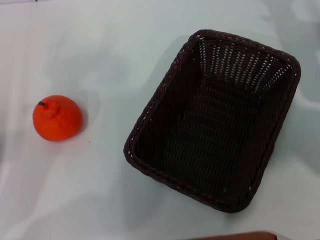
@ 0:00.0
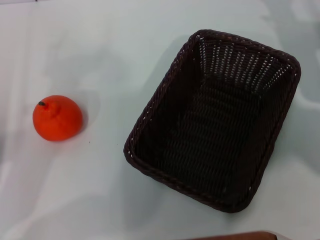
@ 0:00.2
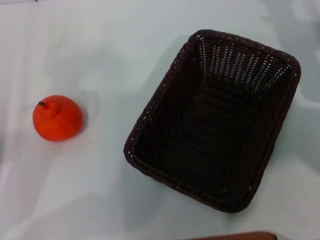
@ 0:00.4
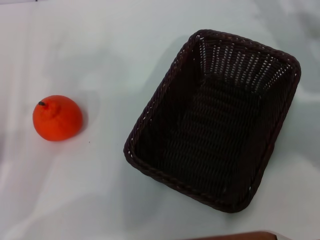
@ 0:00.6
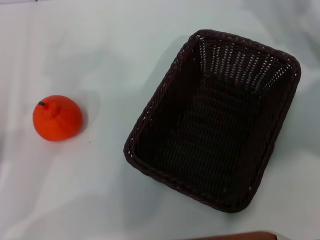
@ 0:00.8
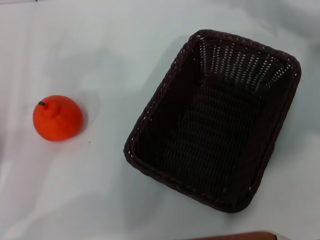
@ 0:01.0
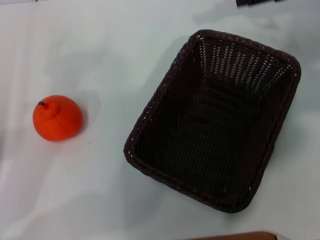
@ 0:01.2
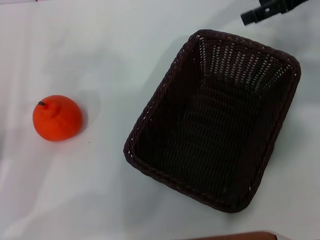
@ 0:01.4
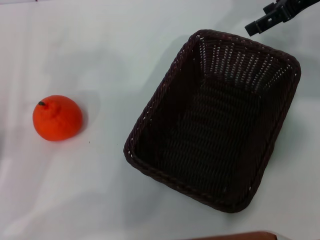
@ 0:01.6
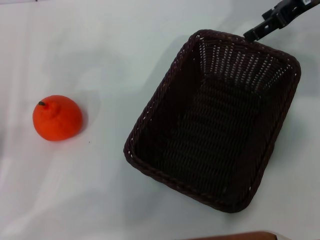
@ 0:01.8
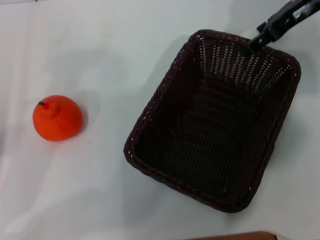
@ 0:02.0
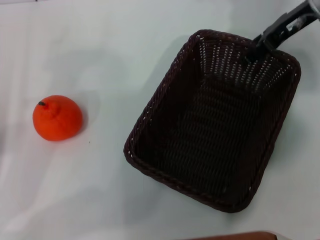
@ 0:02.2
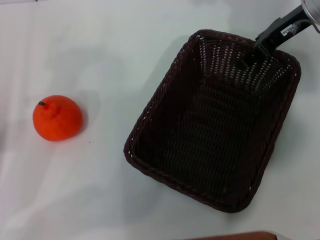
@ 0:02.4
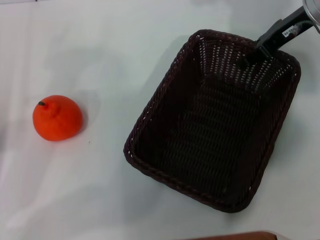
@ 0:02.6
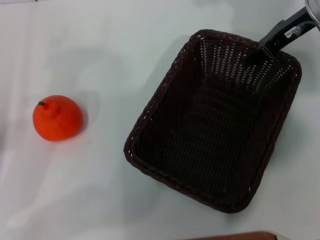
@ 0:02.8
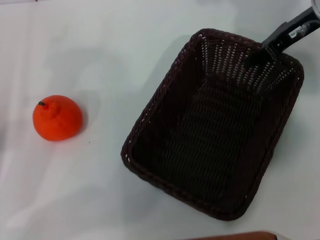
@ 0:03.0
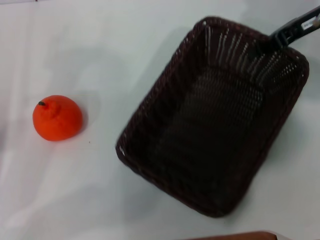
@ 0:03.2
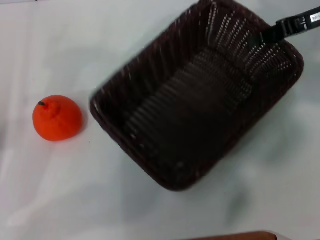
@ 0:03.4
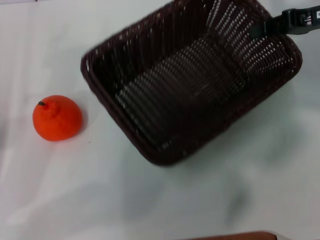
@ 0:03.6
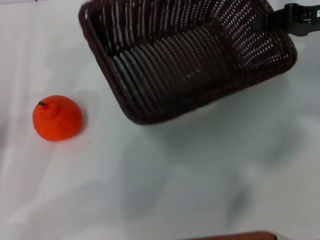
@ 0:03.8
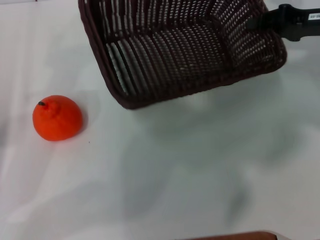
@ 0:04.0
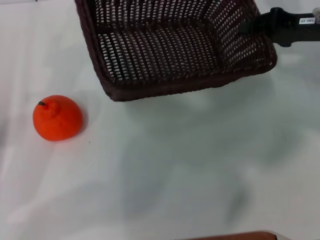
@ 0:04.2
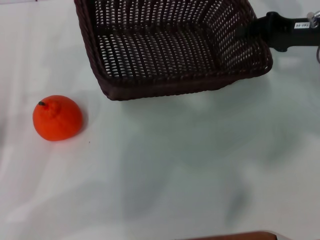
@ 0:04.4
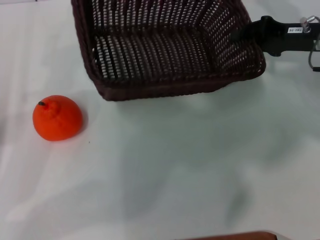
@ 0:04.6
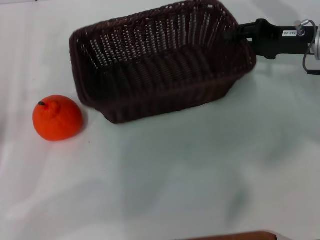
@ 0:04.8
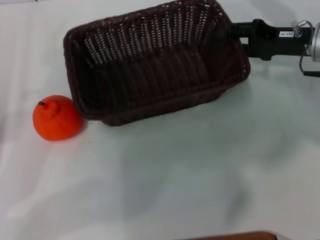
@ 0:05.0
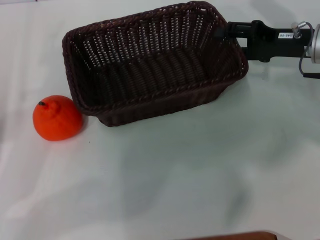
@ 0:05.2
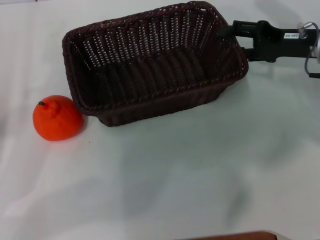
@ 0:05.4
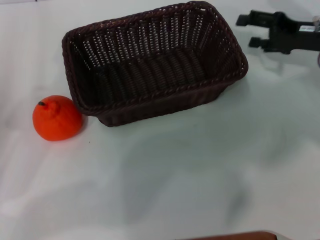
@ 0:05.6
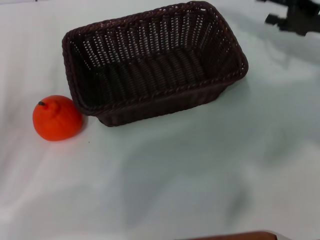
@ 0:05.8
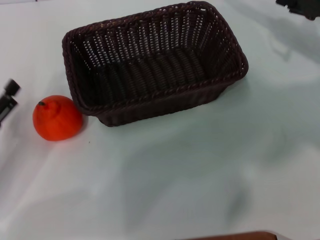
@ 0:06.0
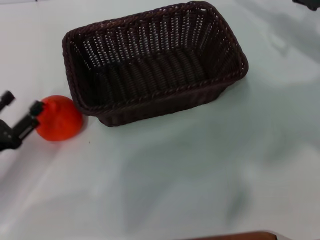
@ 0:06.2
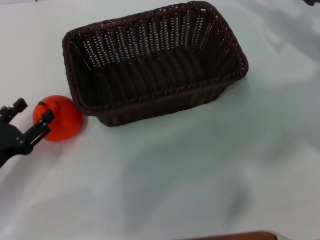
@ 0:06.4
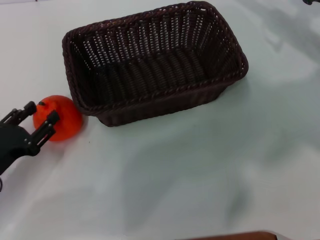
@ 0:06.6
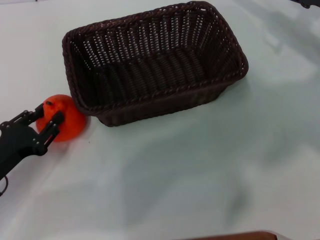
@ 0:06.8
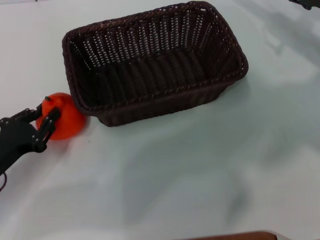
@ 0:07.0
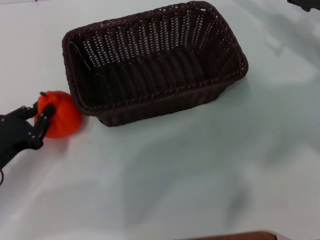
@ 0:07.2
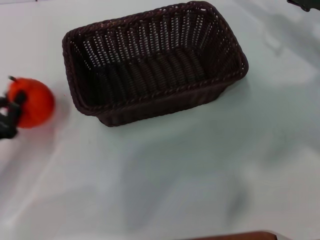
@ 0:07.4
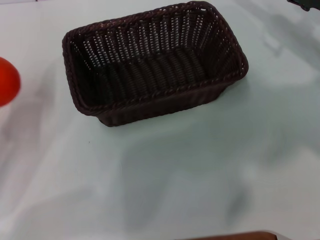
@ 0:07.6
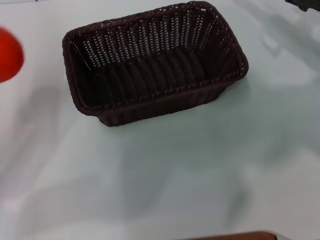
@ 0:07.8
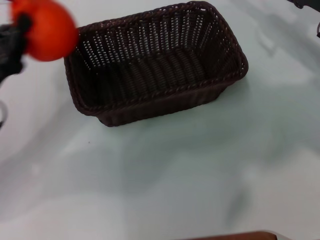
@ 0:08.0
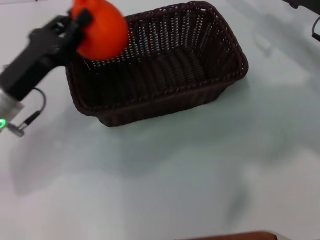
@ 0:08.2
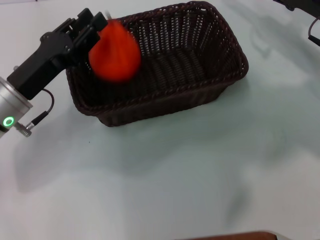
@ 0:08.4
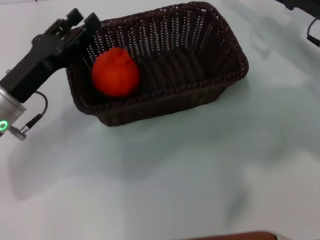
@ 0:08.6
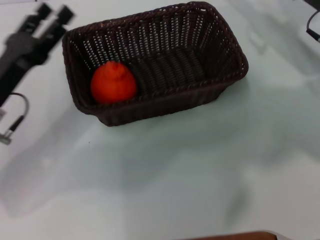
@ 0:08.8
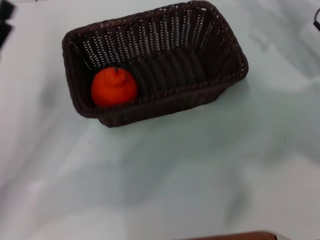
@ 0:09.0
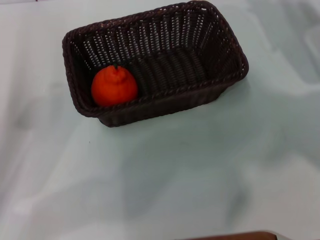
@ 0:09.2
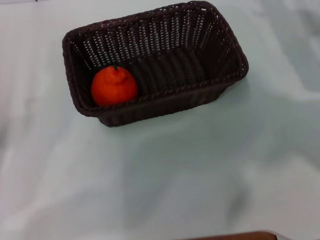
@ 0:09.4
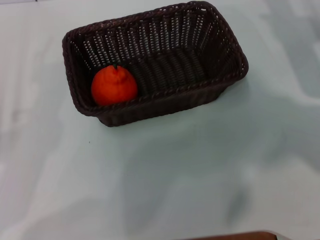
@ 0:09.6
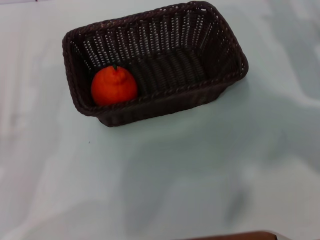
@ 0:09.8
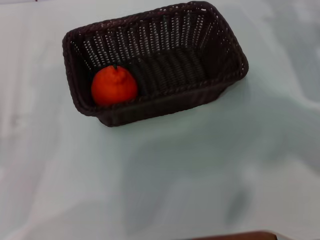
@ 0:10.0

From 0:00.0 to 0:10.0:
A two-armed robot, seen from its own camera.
Task of the whole recording: the right gripper pick up the black basket and place it horizontally in the middle of the table, the left gripper pick up the orange and place it into the black basket.
Step, from 0:00.0 to 0:03.2: Pick up the dark basket with the right gripper.
Step, from 0:03.4 to 0:05.6: Place the dark basket in the center of view with the right gripper.
Step, from 0:05.8 to 0:07.6: Pick up the orange with the left gripper.
Step, from 0:07.8 to 0:08.8: Place the orange into the dark basket with the left gripper.
From 0:00.0 to 0:01.4: The right gripper is displaced upward and forward by roughly 15 cm.
From 0:01.4 to 0:02.8: The right gripper moves downward, about 5 cm, and closes.
From 0:02.8 to 0:04.2: The right gripper shifts approximately 5 cm to the right, and closes its fingers.
From 0:04.2 to 0:05.8: The right gripper opens up.
From 0:05.8 to 0:07.2: The left gripper changes place by about 5 cm, and closes up.
From 0:07.2 to 0:08.6: The left gripper goes about 10 cm forward, to the right and upward.
From 0:08.6 to 0:10.0: The left gripper is displaced backward and to the left by approximately 15 cm, and opens its fingers.
